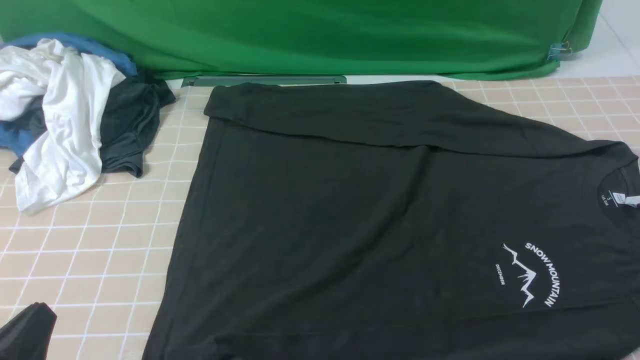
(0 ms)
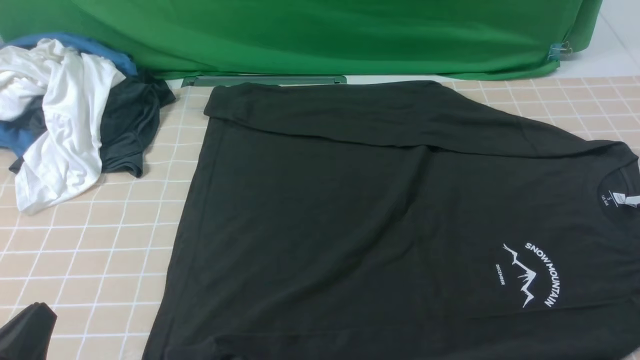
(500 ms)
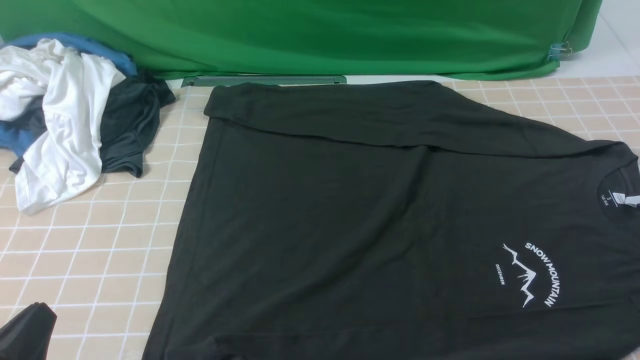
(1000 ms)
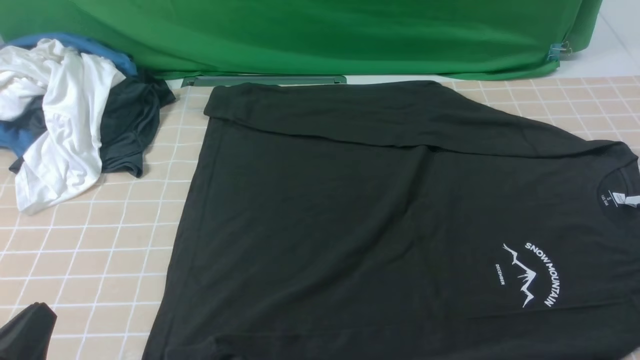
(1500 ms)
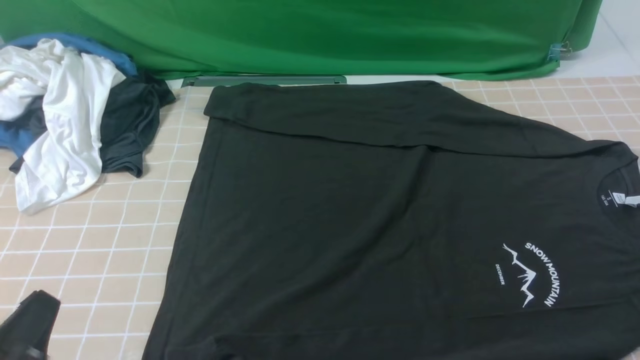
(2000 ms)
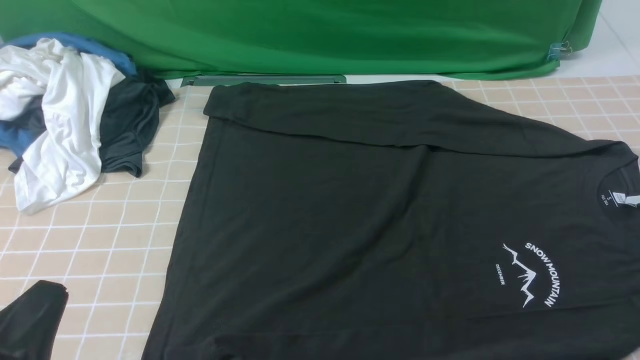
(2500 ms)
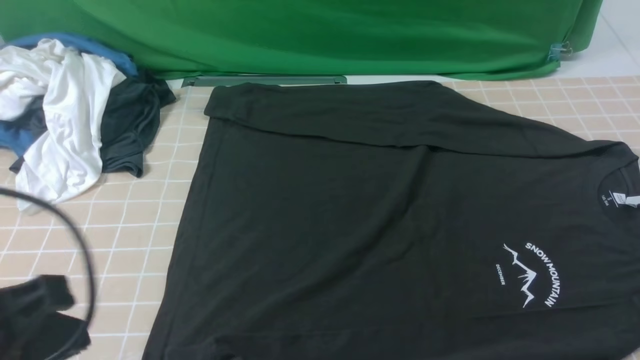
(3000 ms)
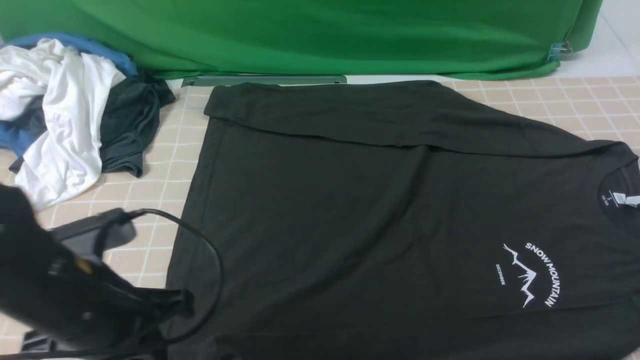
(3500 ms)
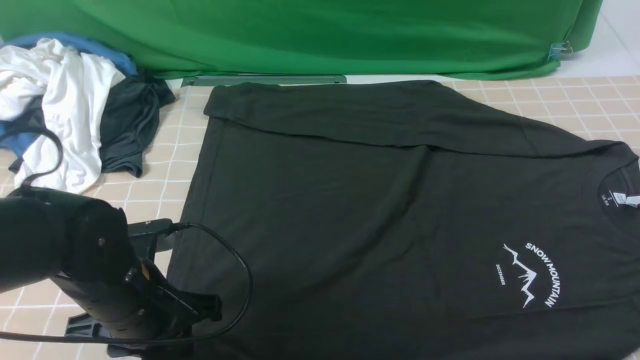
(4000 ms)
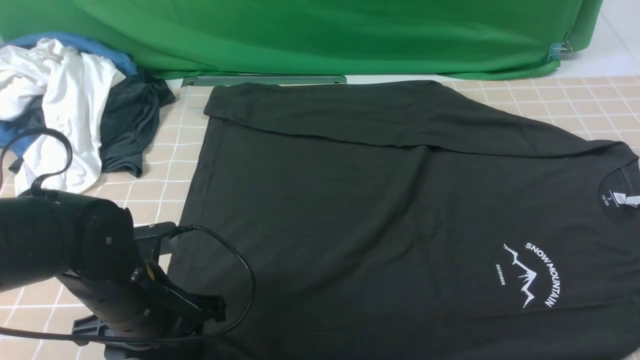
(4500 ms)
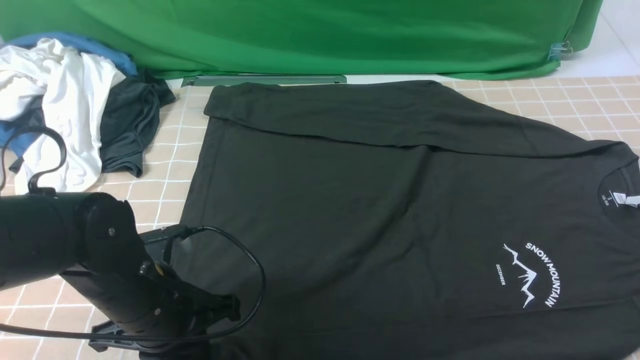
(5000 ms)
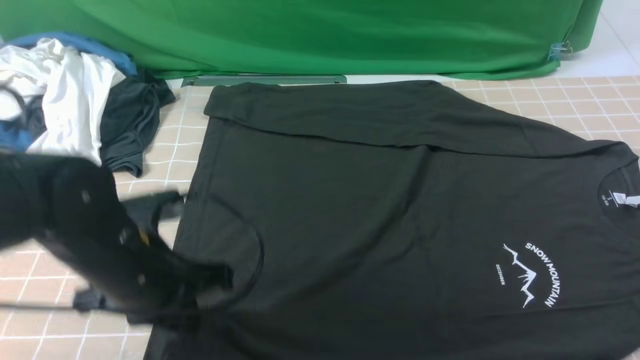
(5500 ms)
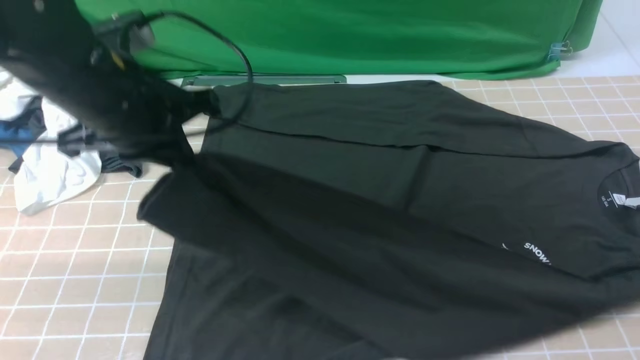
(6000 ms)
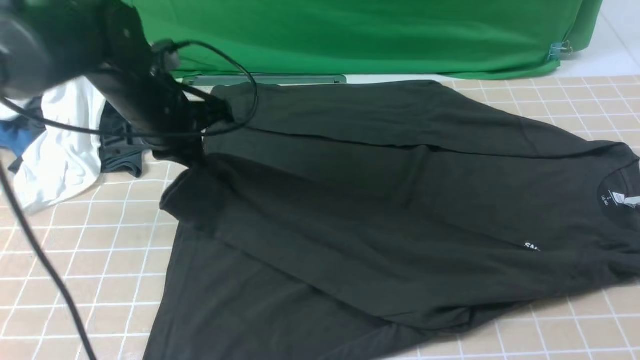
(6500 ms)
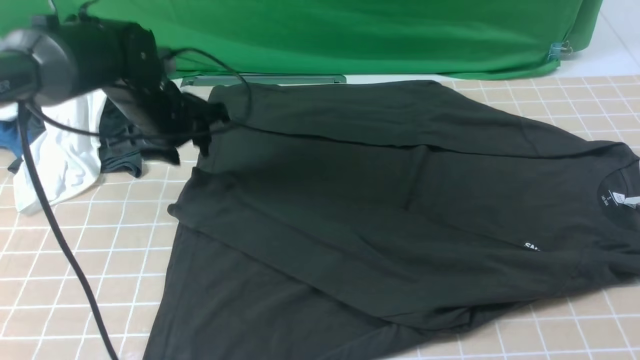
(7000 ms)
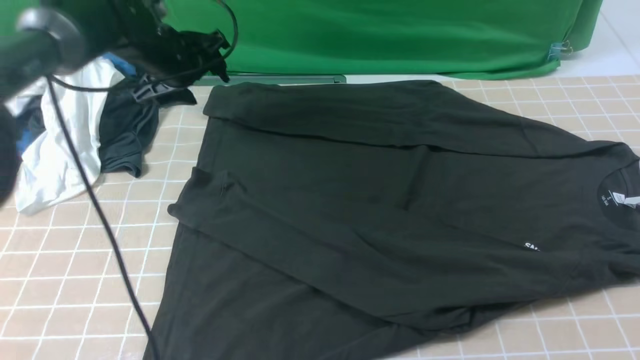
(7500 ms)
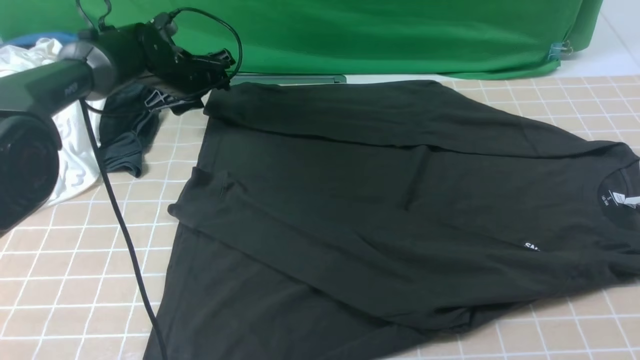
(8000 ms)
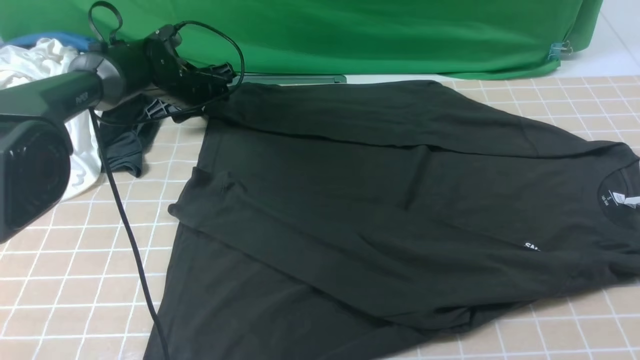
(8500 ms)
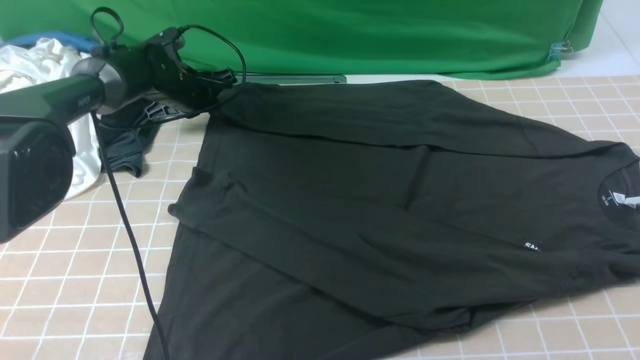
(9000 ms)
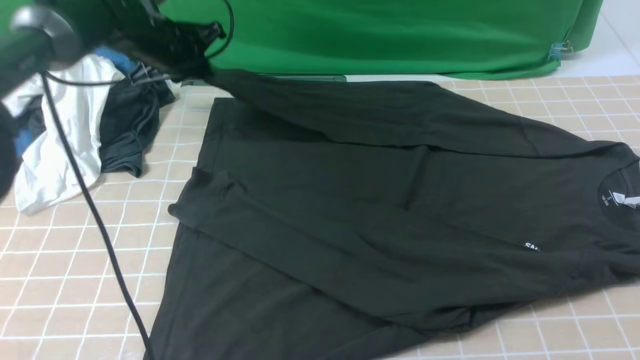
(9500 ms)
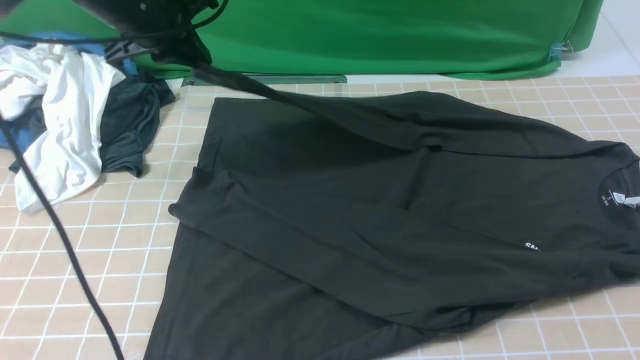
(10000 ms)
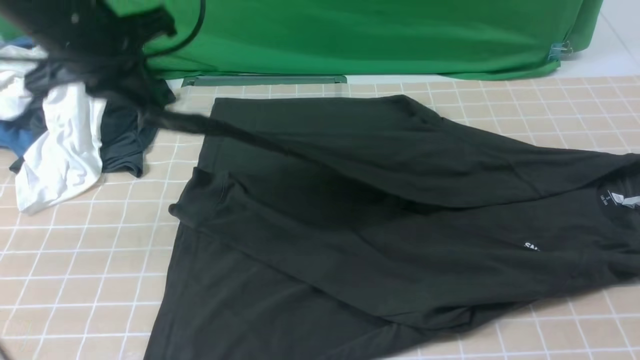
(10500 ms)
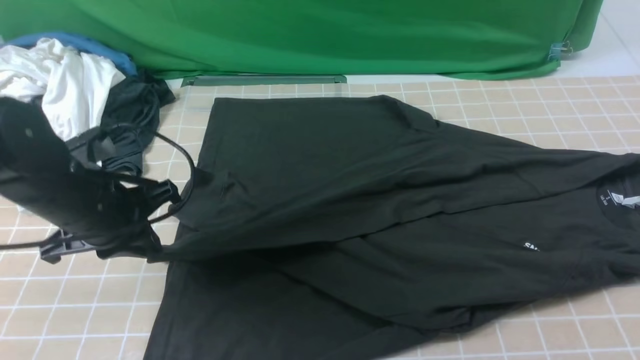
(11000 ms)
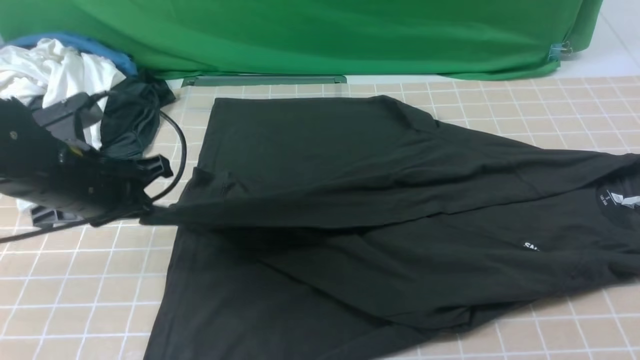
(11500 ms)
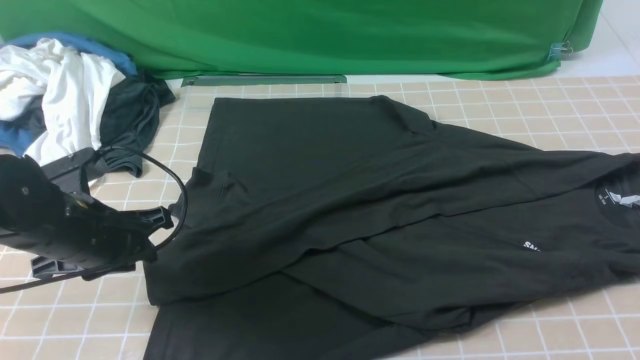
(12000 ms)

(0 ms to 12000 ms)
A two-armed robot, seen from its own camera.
Step, 0 ms - 5000 ms: use the left arm to clamp the cuff closest to it.
Step, 5500 ms - 7000 ms: use the left arm to drag and place the cuff at the centered position on the left edge of the fabric.
Step, 7500 ms - 9000 ms: use the left arm to clamp the cuff farthest from it.
2000 ms - 4000 ms: The left gripper heads forward and to the right, covering some 15 cm, and opens up.
4000 ms - 6000 ms: The left gripper heads upward and forward, covering some 15 cm, and closes.
6000 ms - 8000 ms: The left gripper is displaced forward and downward by approximately 25 cm, and opens up.
8000 ms - 10000 ms: The left gripper moves upward and backward, roughly 15 cm, and closes up.
10000 ms - 12000 ms: The left gripper shifts approximately 20 cm backward and downward, and opens.

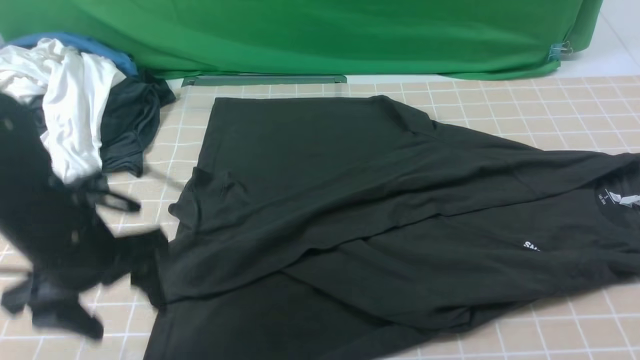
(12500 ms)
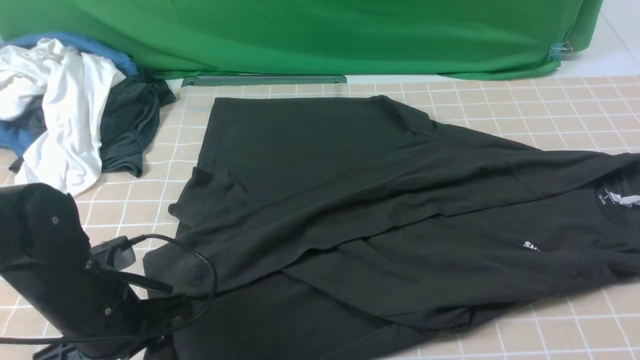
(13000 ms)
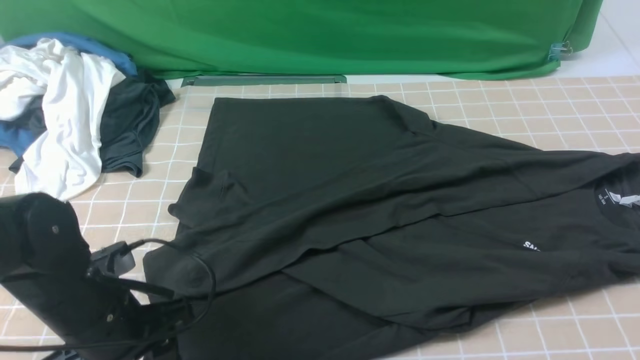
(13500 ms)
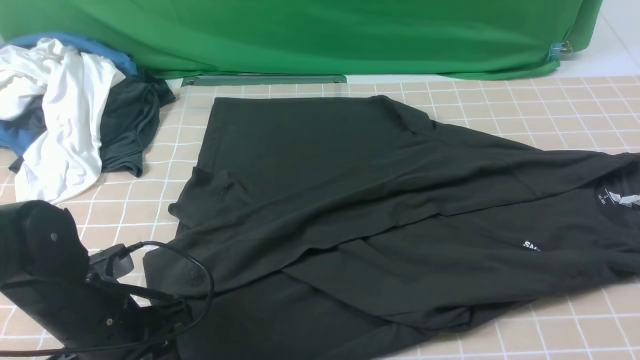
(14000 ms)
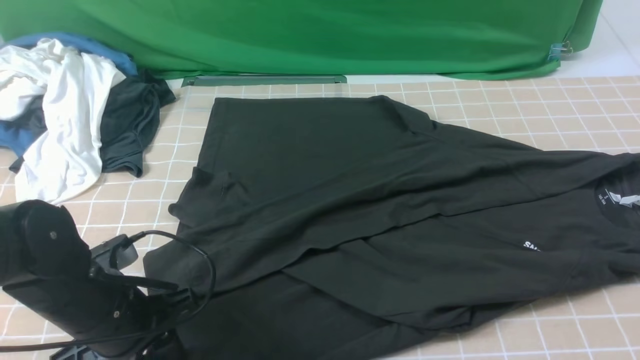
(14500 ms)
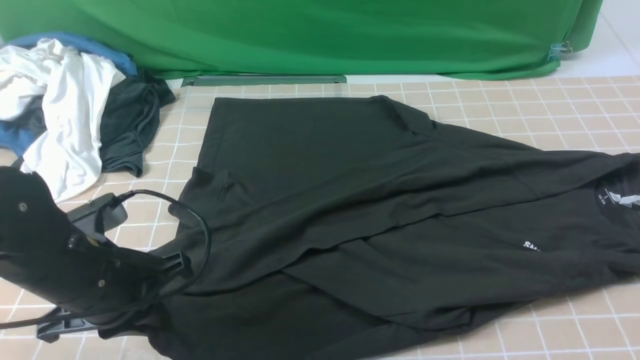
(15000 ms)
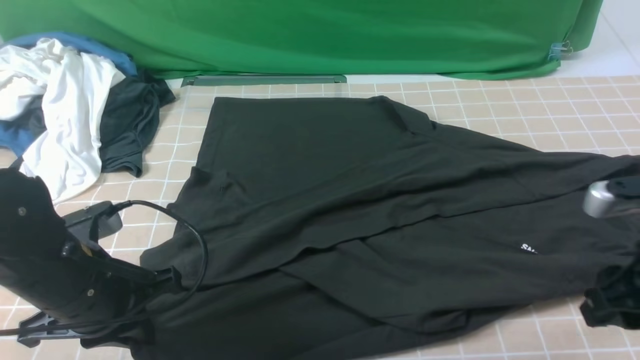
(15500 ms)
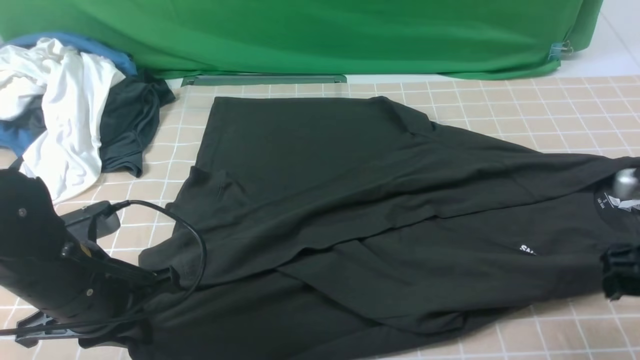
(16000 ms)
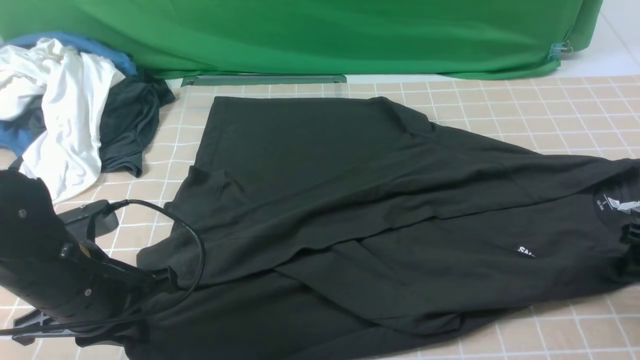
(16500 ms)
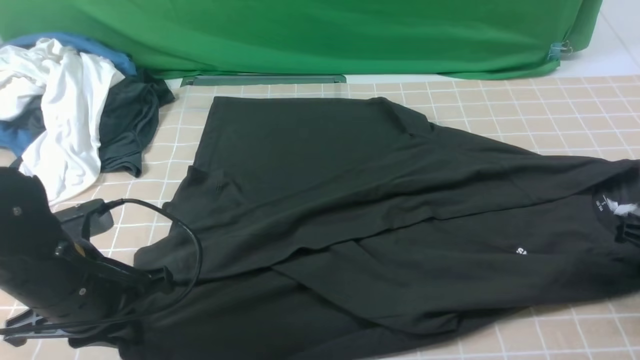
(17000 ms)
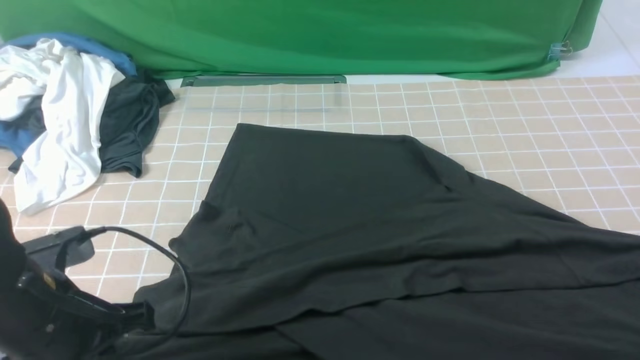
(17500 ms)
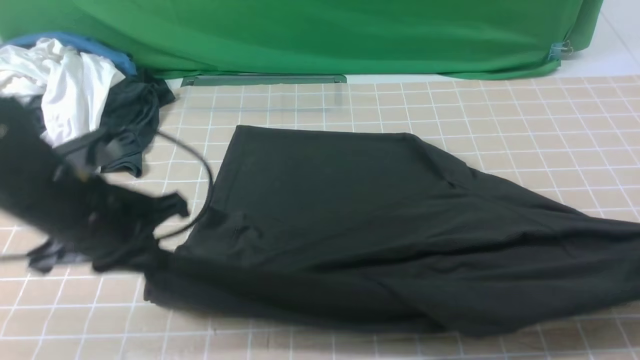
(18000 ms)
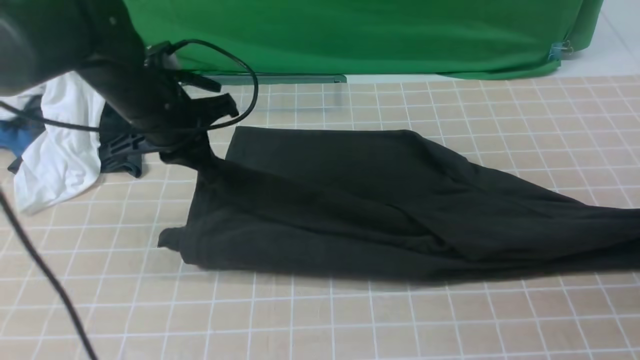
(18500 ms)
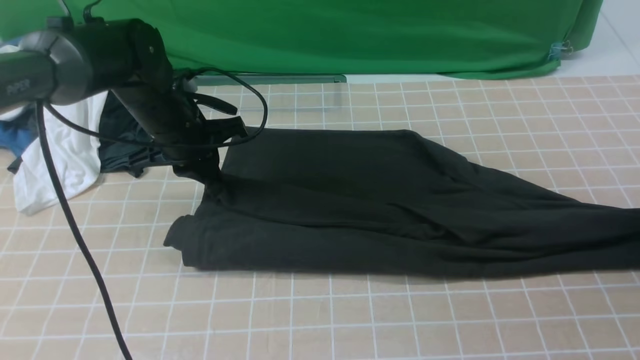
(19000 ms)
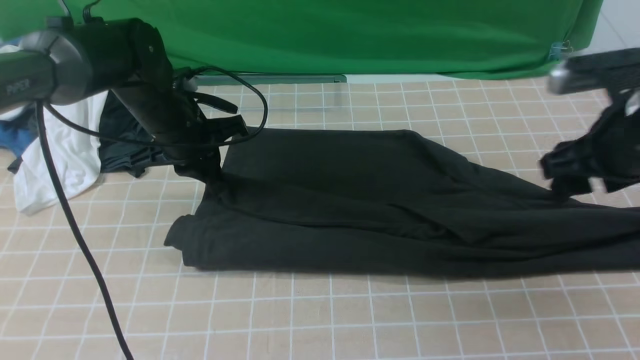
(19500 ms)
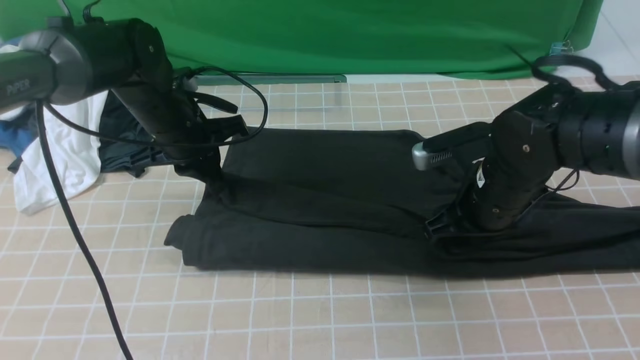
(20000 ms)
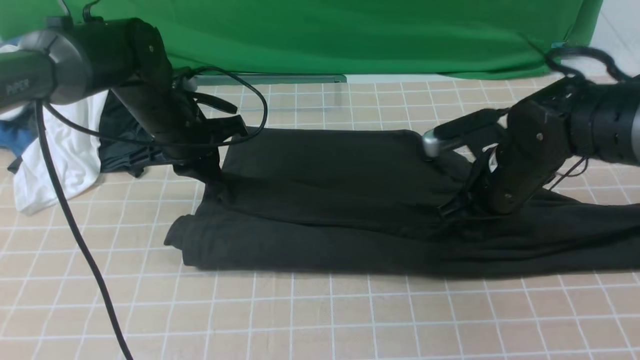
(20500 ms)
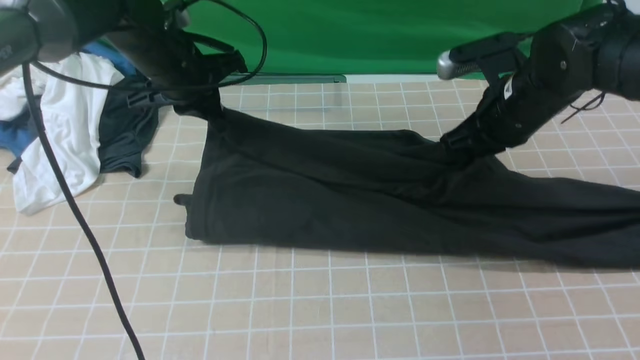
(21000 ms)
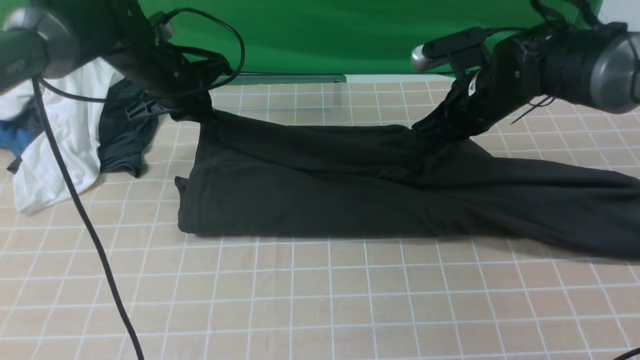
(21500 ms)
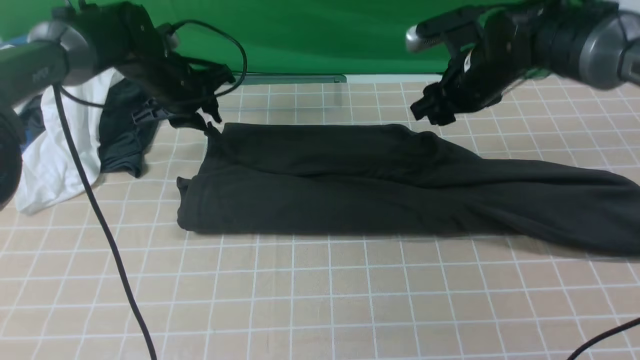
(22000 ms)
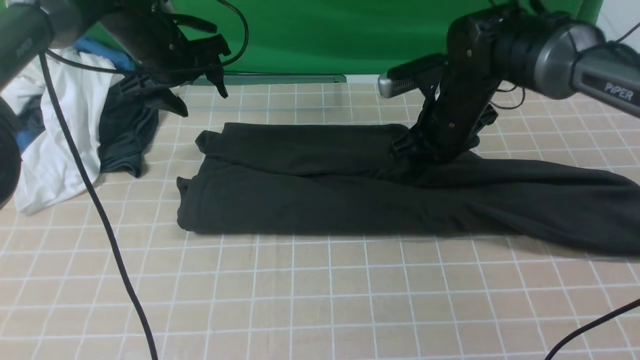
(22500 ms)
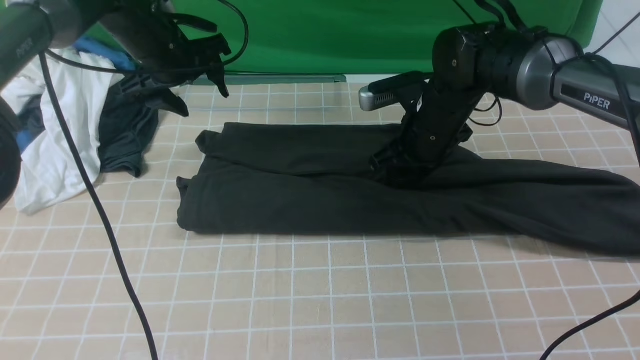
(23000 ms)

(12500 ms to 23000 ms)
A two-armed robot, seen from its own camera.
Step, 12500 ms - 16500 ms: use both arms simultaneously to clamp the lower edge of the clothing fabric.
12500 ms - 14500 ms: The left gripper ends up approximately 5 cm from where it was, and closes.
14500 ms - 16500 ms: The right gripper heads downward, forward and to the right, covering some 25 cm, and opens up. Meanwhile the left gripper closes up.
16500 ms - 19000 ms: The left gripper shifts approximately 20 cm forward. Meanwhile the right gripper moves forward and upward, roughly 10 cm, and closes, then reopens.
19000 ms - 21000 ms: The left gripper heads upward, covering about 5 cm, while the right gripper shifts roughly 20 cm to the left, and closes.
21000 ms - 23000 ms: The right gripper goes some 5 cm to the left, and opens. Meanwhile the left gripper opens up.
